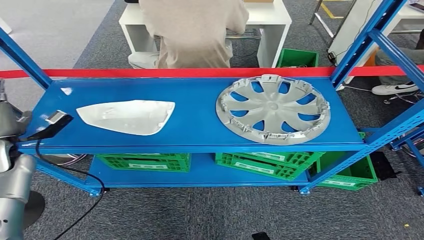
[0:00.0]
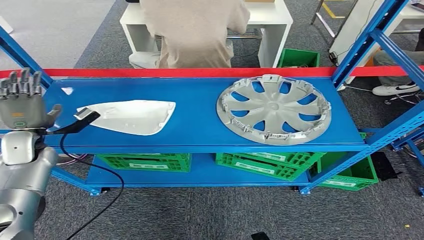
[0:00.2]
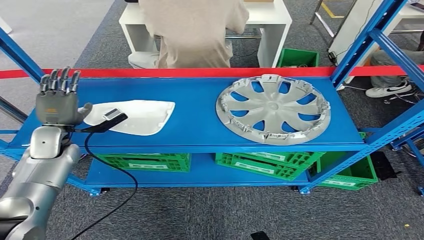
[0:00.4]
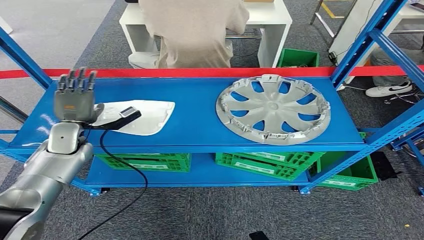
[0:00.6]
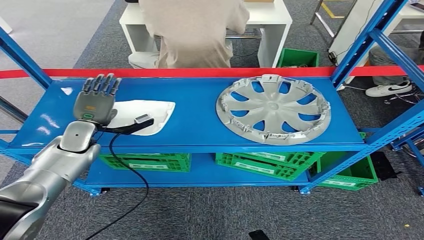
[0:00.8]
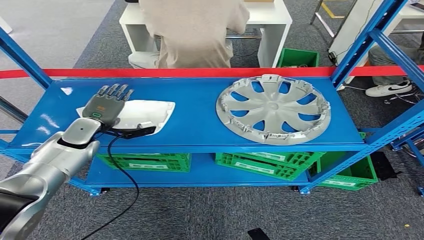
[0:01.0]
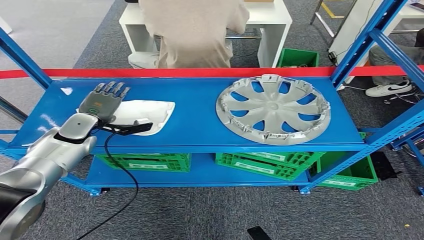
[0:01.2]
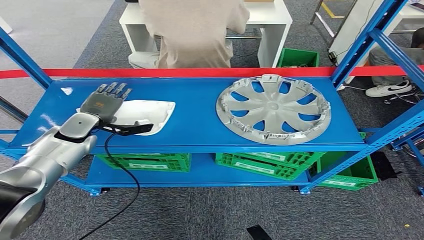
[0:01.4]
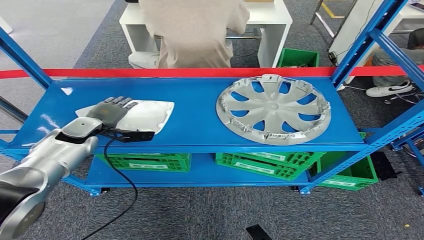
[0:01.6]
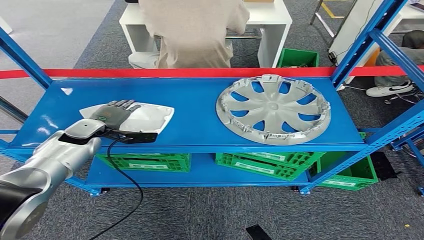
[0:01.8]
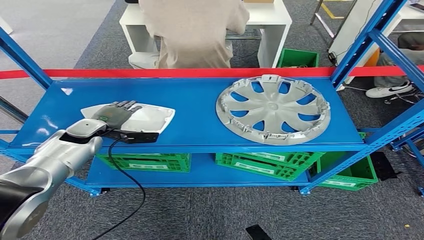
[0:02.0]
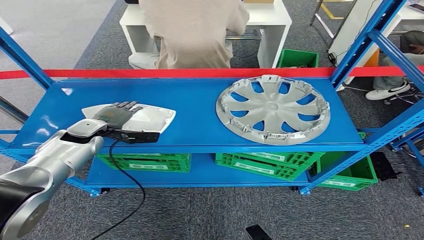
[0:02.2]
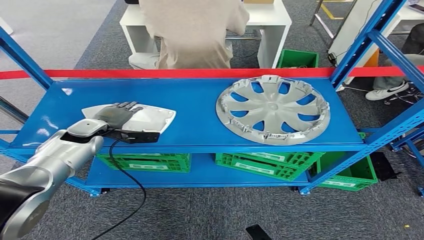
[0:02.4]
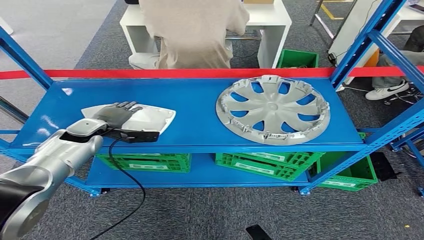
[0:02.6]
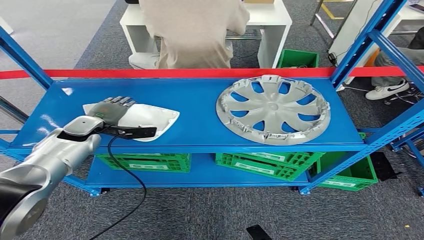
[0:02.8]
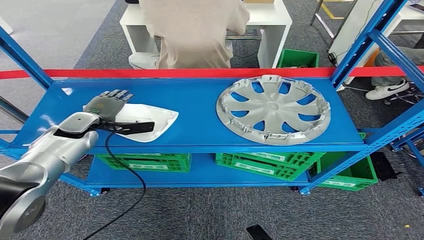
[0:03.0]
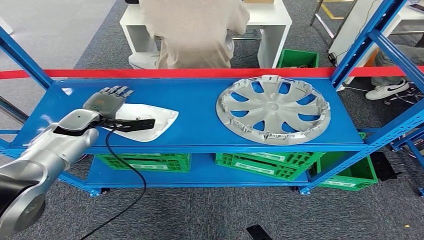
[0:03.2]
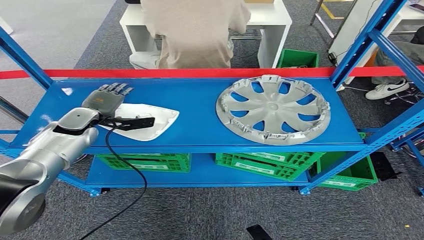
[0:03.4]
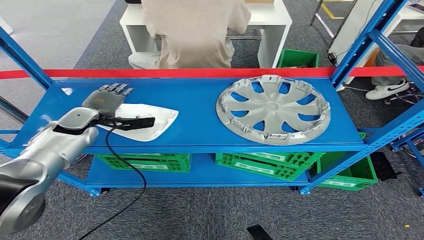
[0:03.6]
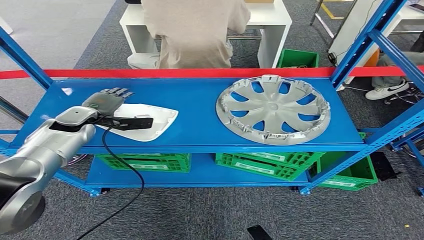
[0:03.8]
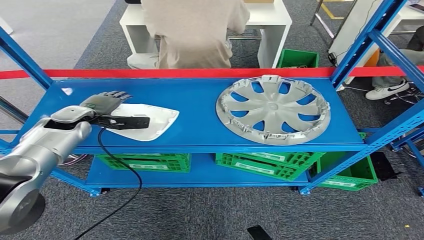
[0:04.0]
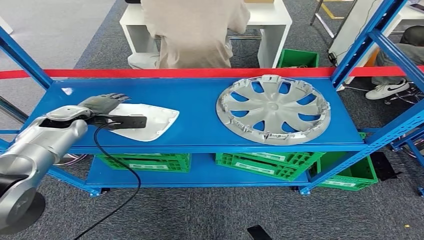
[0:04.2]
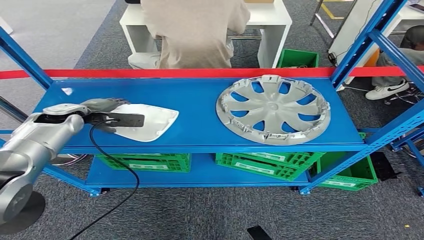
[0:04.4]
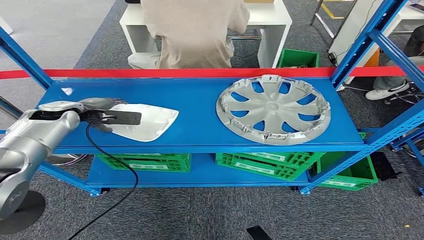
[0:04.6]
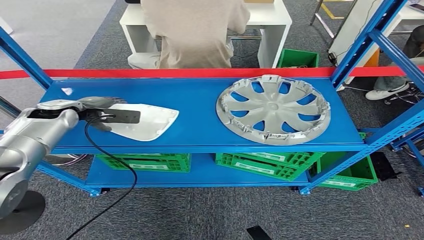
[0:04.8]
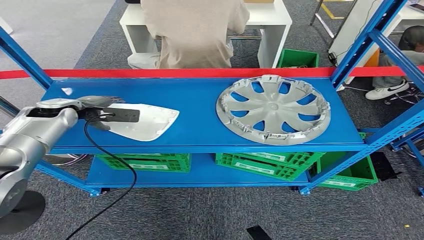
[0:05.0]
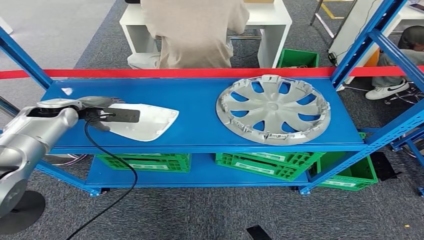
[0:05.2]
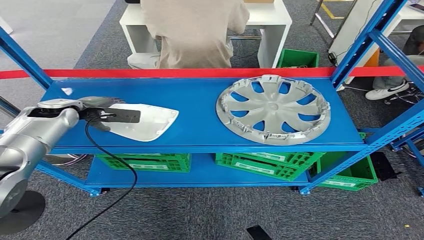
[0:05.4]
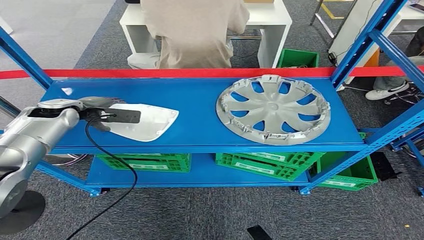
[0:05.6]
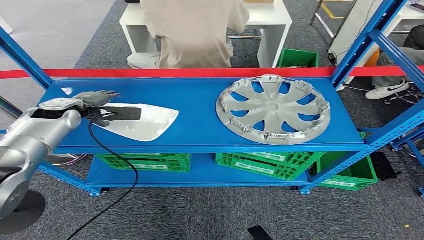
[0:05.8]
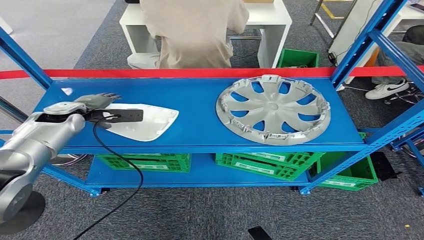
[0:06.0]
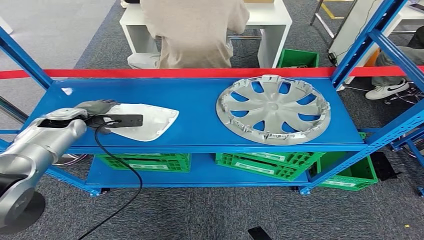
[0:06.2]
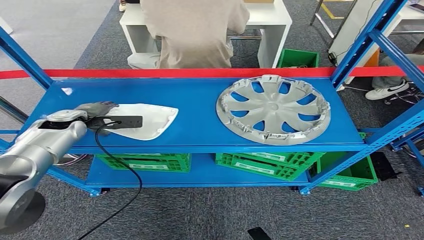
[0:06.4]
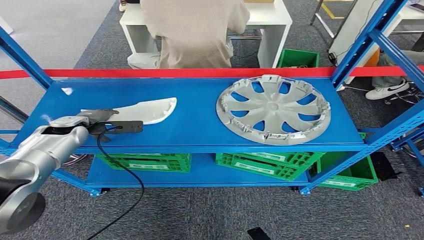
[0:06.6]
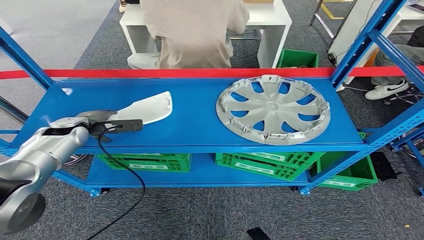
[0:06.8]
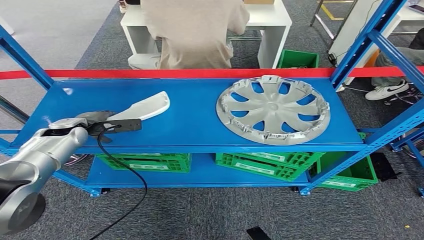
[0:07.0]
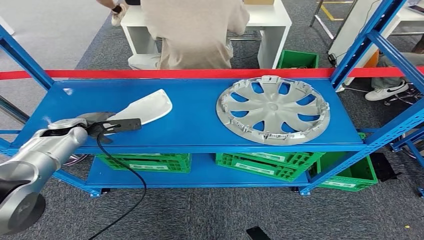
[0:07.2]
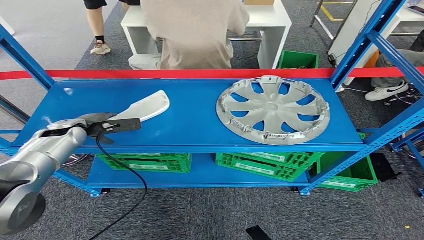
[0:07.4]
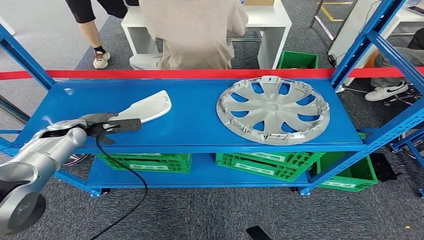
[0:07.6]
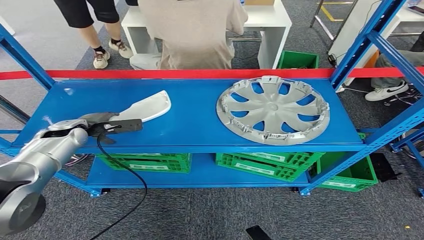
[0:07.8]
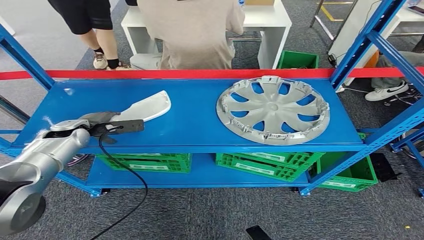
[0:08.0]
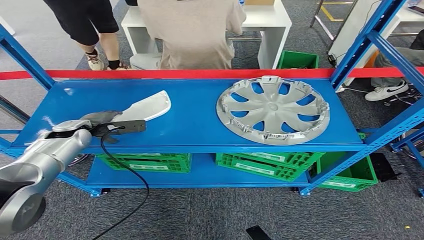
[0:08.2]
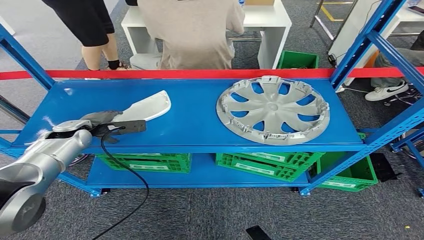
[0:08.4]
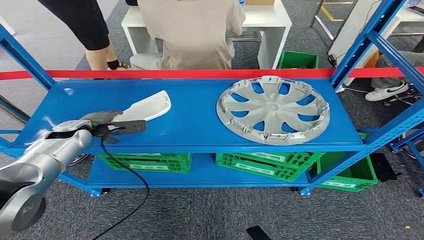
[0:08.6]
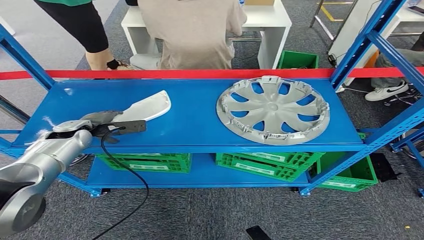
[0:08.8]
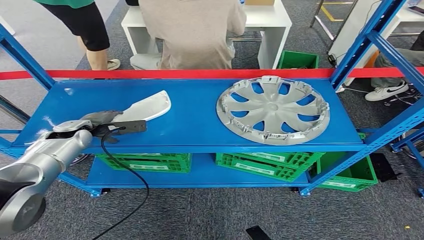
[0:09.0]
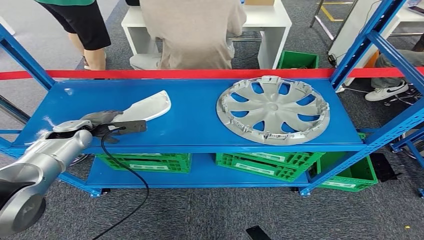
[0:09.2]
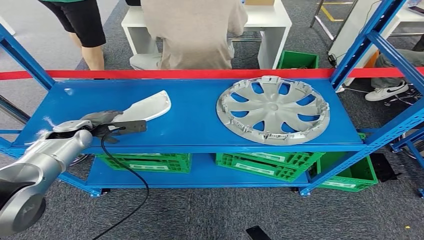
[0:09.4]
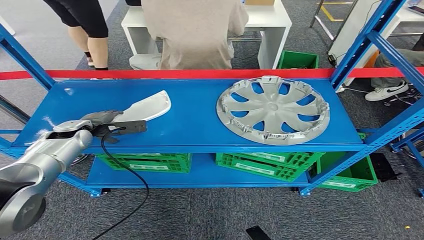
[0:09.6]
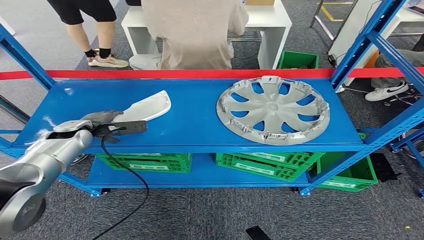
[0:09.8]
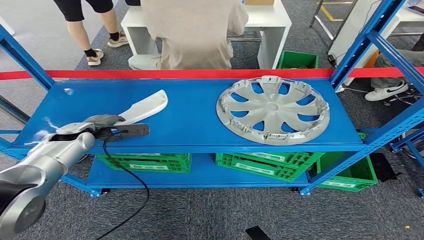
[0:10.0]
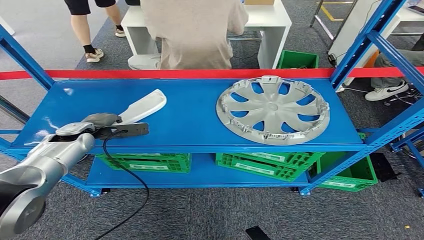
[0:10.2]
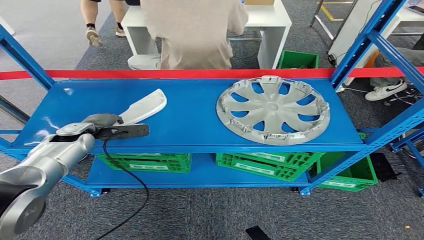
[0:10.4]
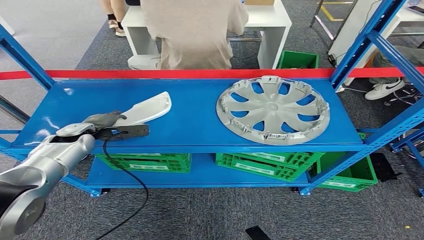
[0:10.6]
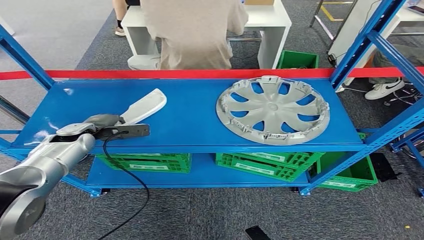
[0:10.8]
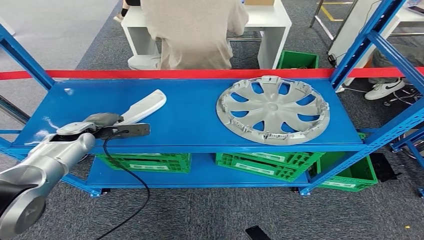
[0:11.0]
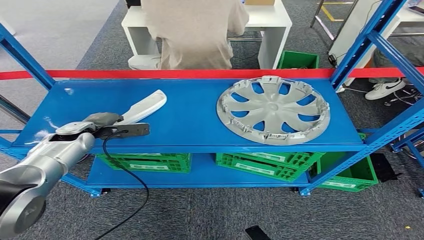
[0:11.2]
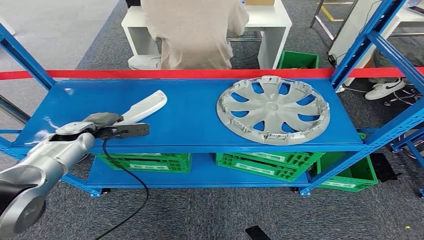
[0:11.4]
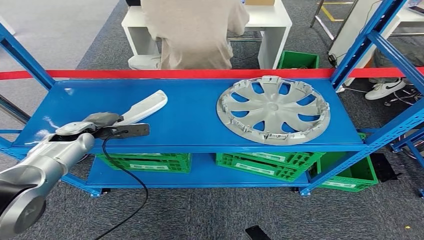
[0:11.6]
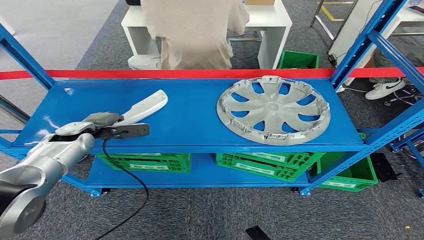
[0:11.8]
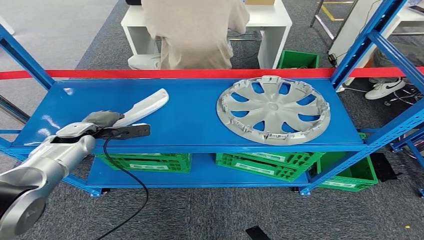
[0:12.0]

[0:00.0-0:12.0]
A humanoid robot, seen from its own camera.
0:00.0 to 0:01.6: The left hand travels to the right and forward by about 15 cm.
0:01.6 to 0:03.0: The hands move only a little.
0:04.4 to 0:06.0: The hands move only a little.
0:06.0 to 0:07.6: The left hand goes about 5 cm downward.
0:07.6 to 0:09.0: The hands move only a little.
0:09.0 to 0:10.4: The two hands keep their place.
0:10.4 to 0:12.0: The hands move only a little.

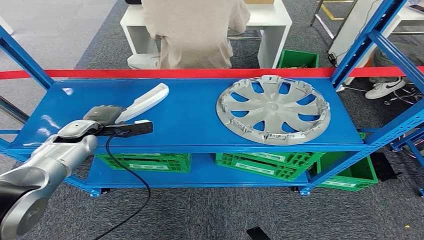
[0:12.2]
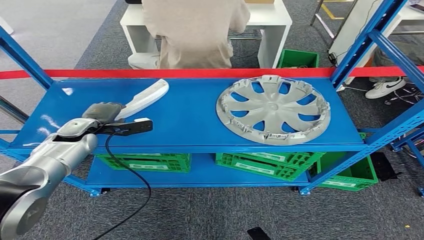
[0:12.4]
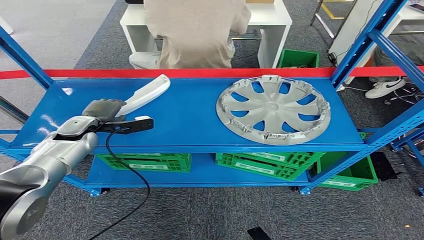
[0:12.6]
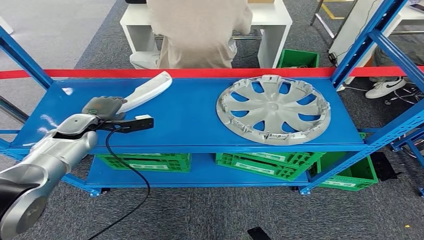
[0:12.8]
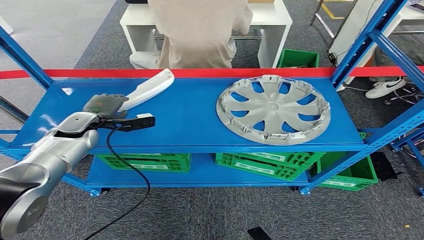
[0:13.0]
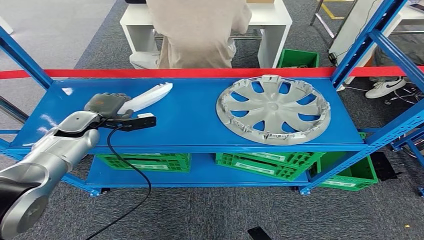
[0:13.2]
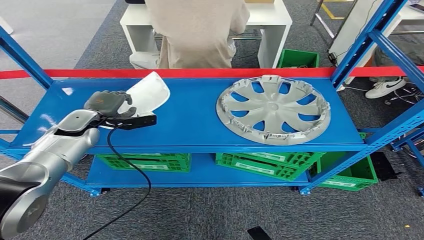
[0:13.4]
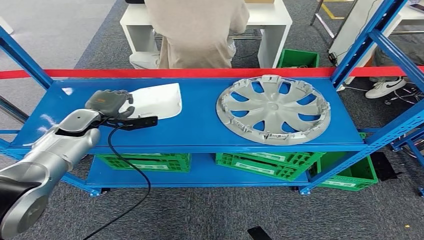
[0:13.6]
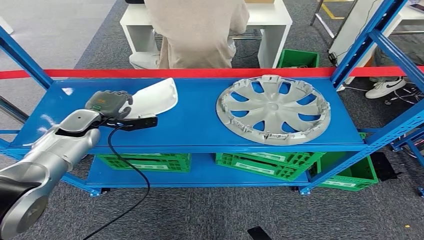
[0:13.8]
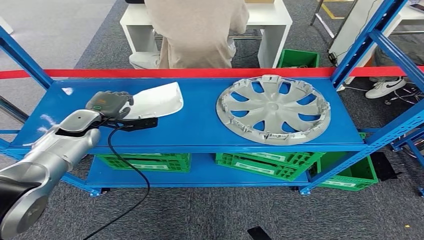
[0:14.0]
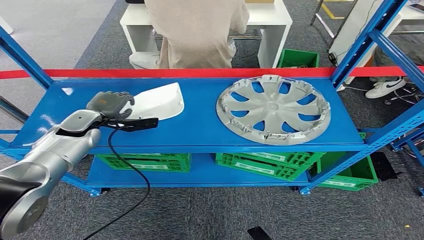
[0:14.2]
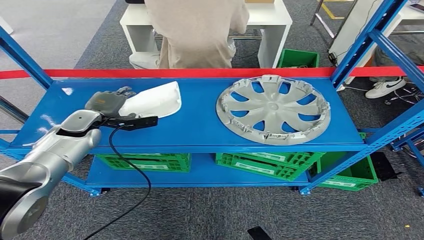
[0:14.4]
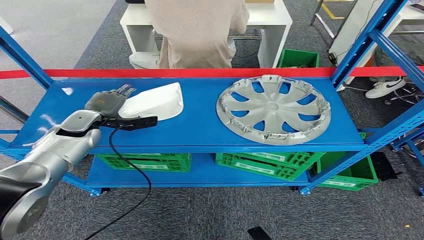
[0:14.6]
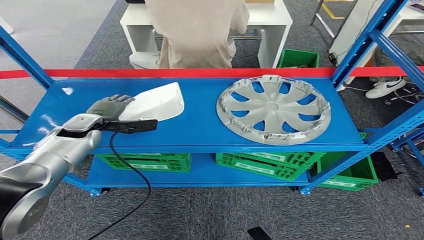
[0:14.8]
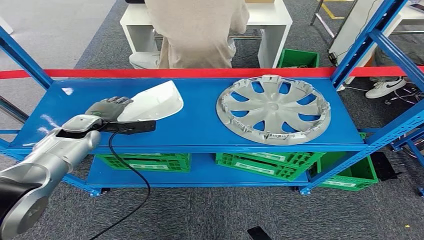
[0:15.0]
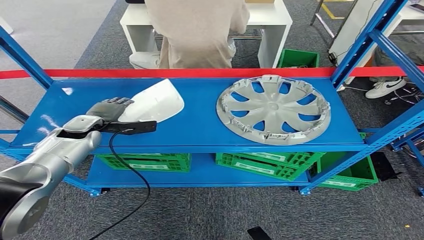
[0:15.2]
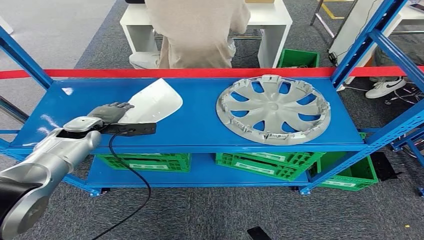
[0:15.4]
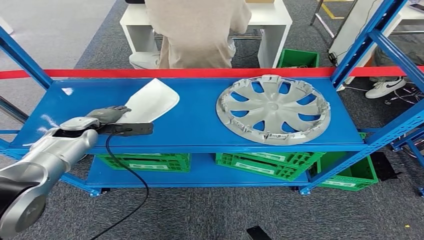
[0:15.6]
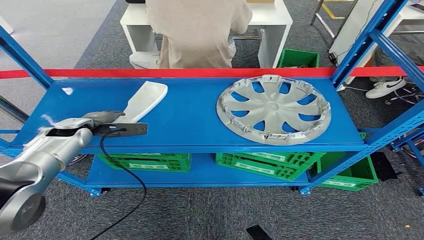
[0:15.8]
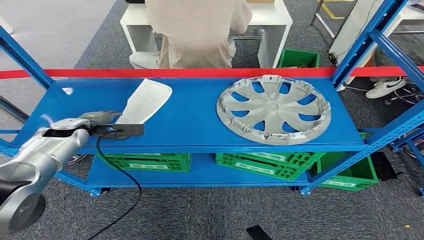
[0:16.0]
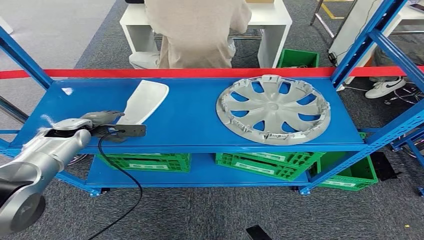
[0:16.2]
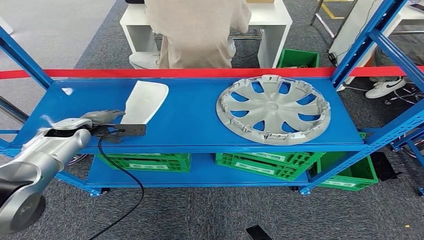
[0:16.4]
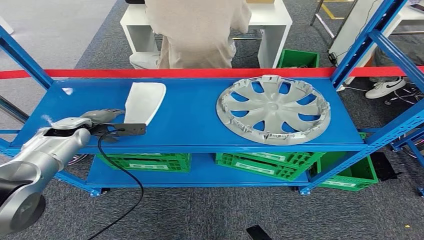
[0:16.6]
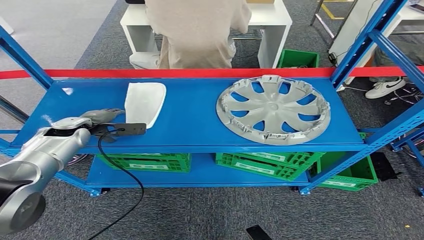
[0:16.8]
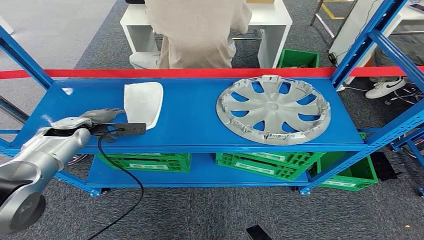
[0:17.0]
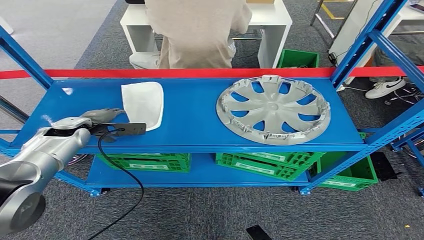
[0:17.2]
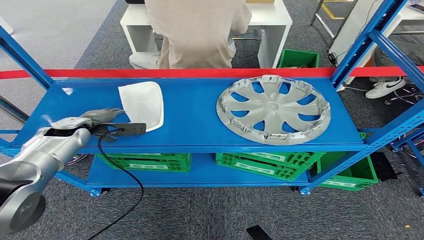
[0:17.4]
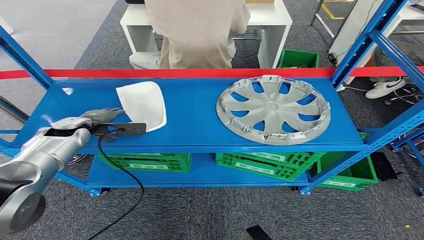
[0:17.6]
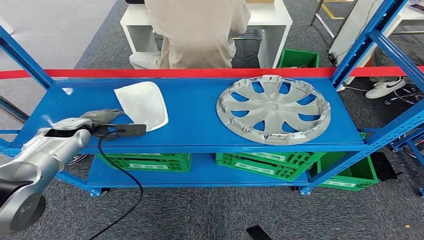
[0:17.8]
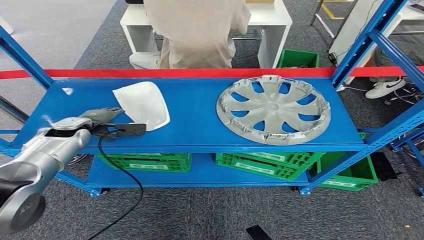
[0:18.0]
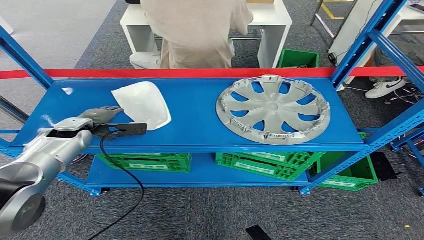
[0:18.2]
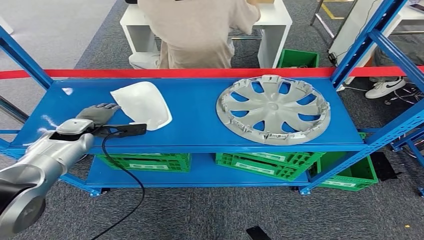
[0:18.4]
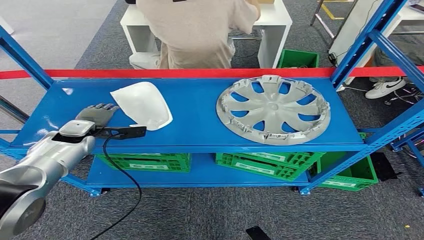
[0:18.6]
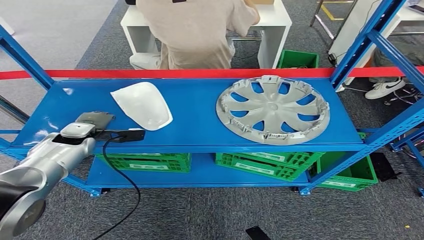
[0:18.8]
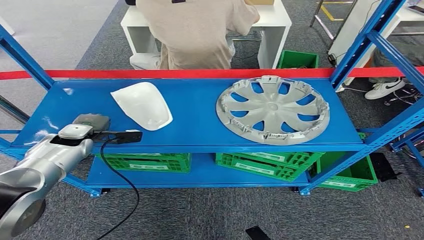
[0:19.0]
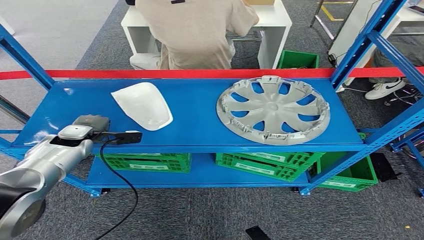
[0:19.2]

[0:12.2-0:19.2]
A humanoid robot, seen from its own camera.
0:12.2 to 0:16.4: The hands stay close to where they were, moving slightly.
0:16.4 to 0:17.8: Both hands stay put.
0:17.8 to 0:19.2: The hands move only a little.
